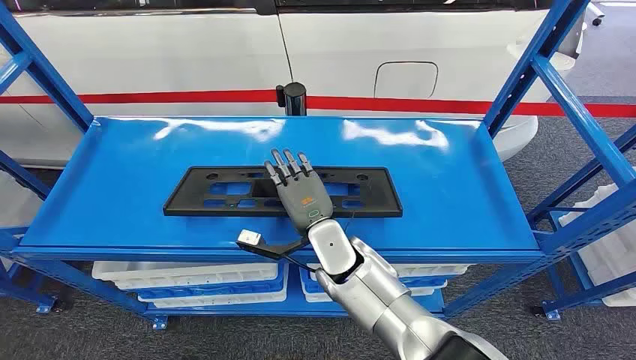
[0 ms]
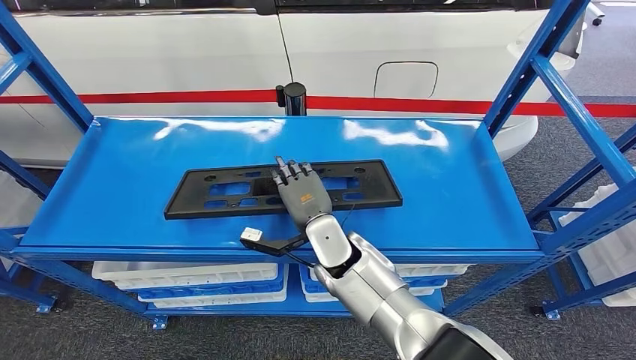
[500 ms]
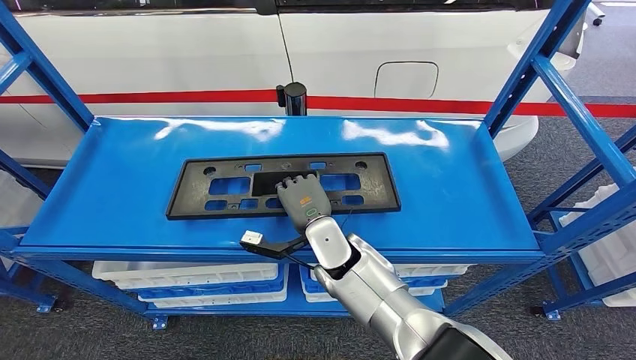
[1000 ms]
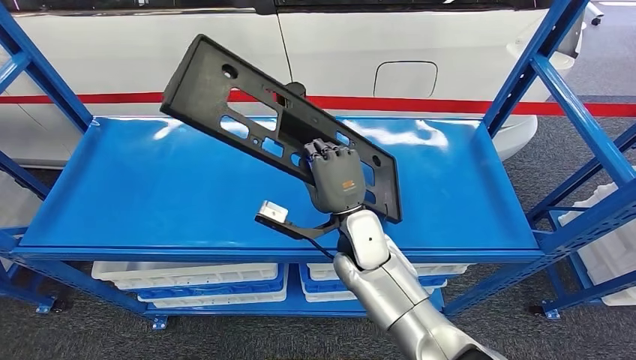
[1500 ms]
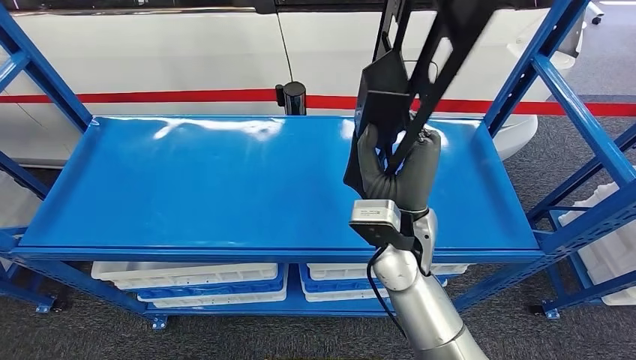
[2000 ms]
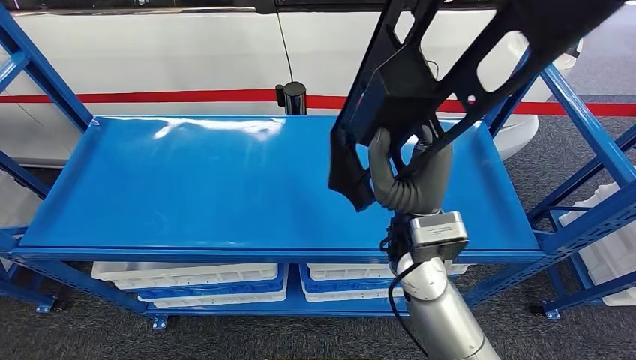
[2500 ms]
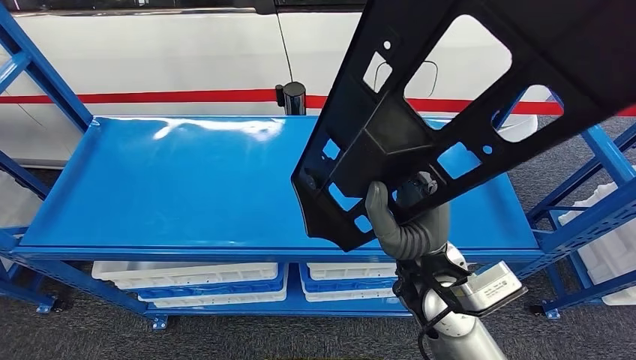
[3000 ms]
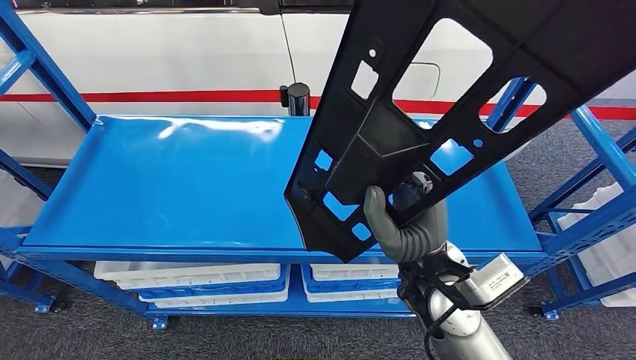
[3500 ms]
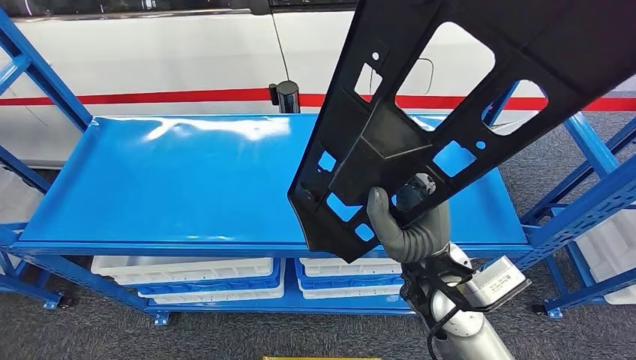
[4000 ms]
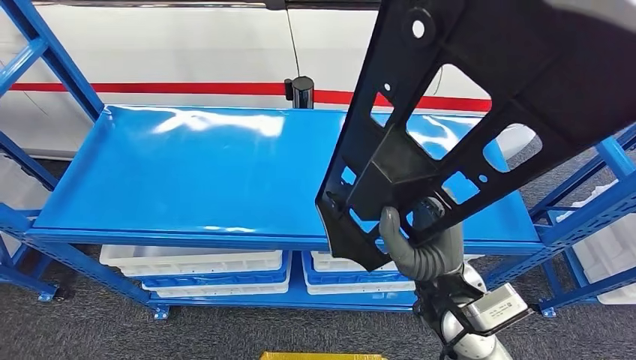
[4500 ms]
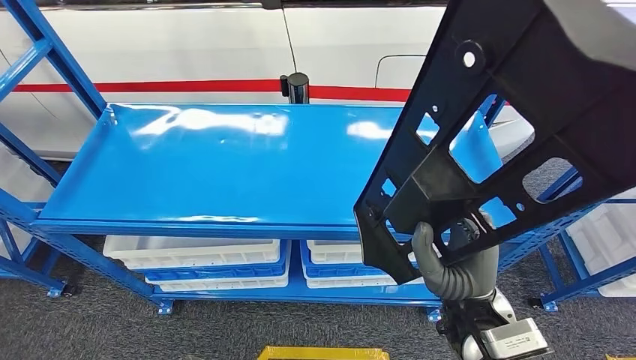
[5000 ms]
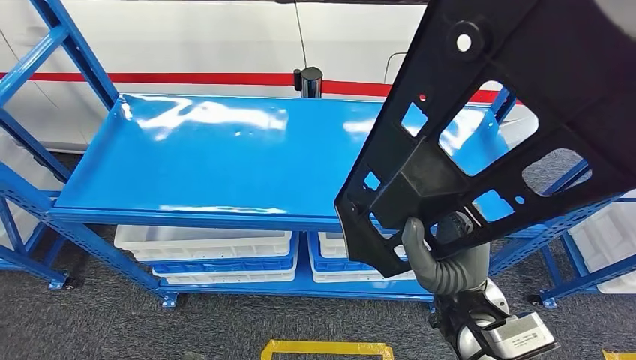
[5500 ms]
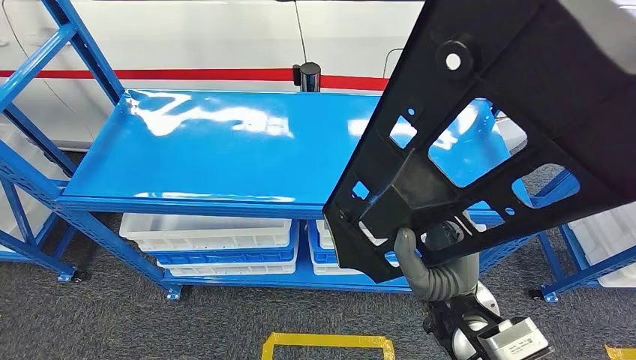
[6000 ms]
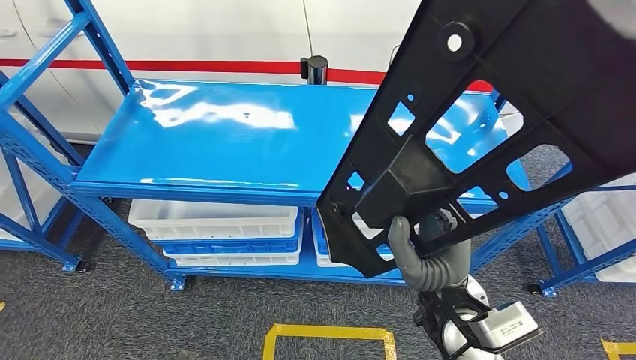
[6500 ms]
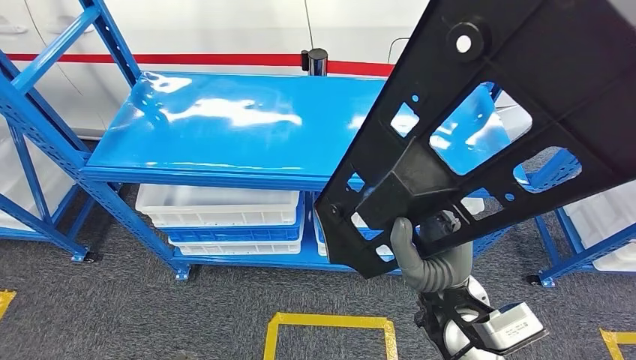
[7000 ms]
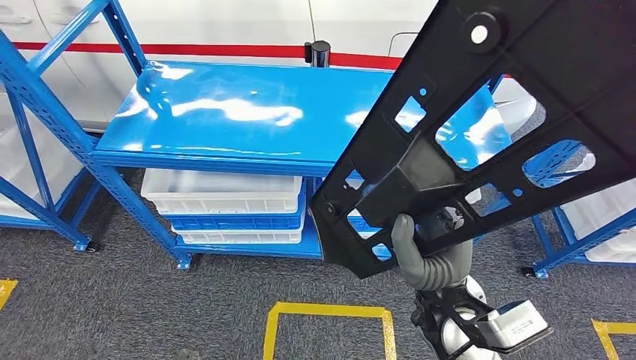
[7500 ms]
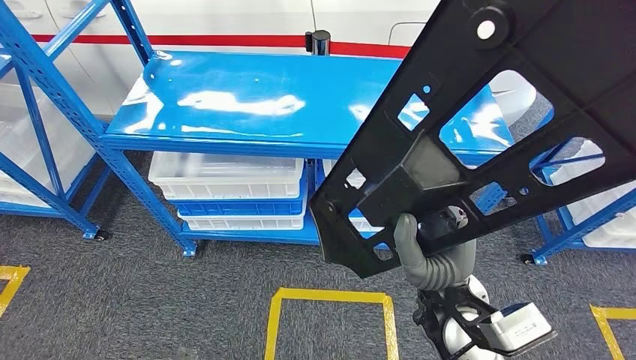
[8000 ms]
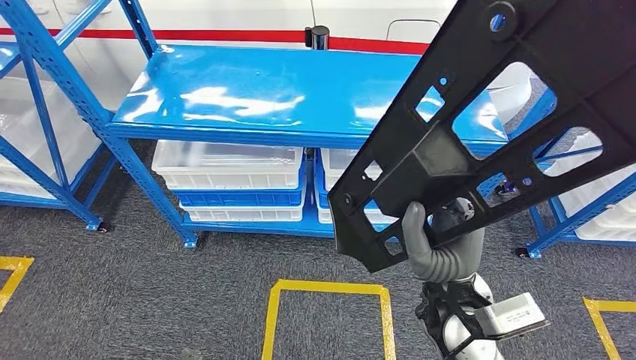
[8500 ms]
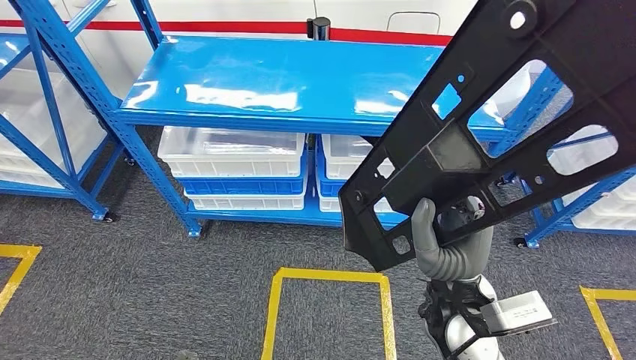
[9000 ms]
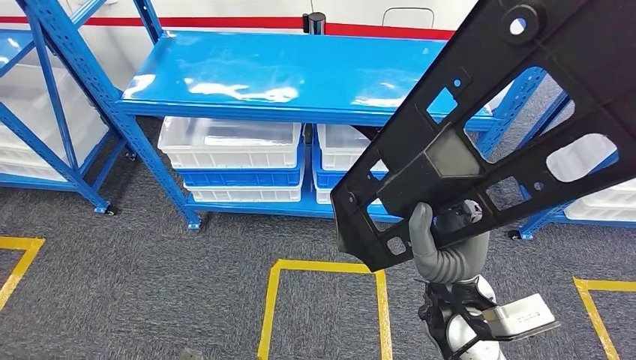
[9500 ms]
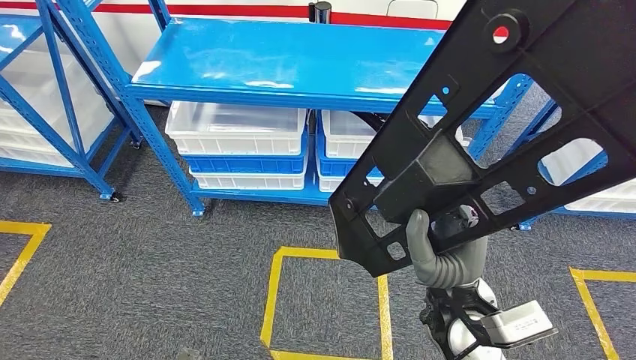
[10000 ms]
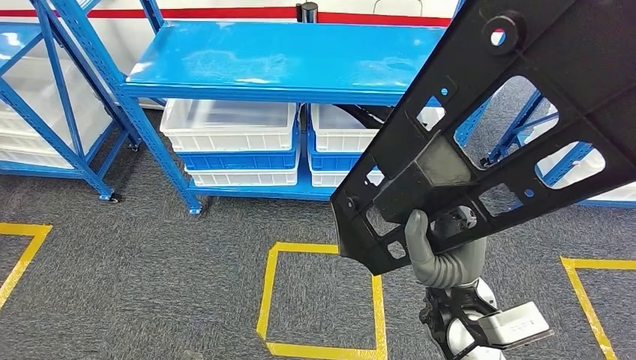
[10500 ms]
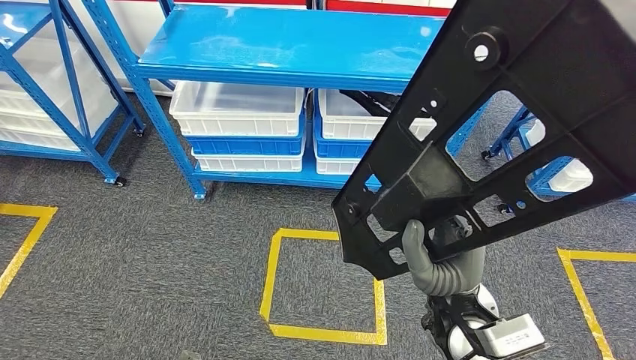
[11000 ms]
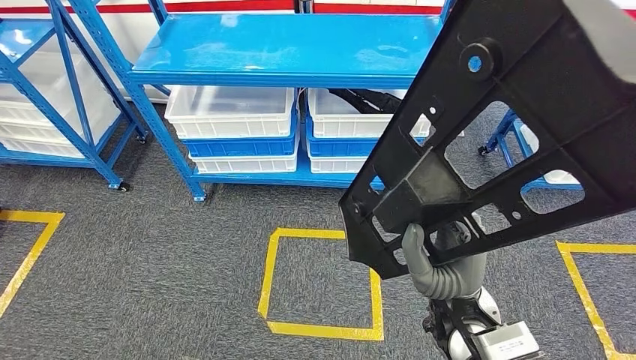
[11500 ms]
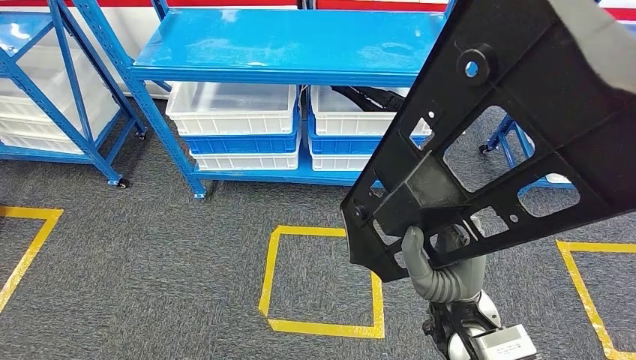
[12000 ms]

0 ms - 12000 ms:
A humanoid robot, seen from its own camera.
Step, 0 ms - 8000 ms: Pick up the large material from the shelf.

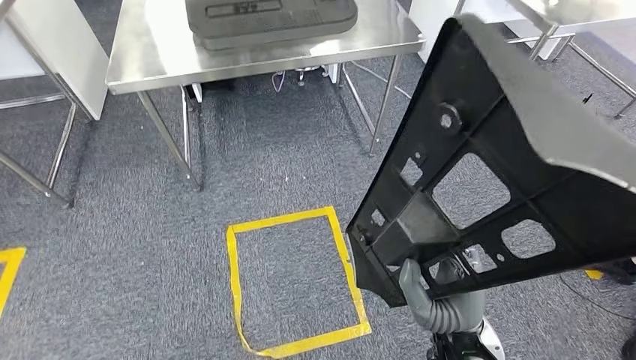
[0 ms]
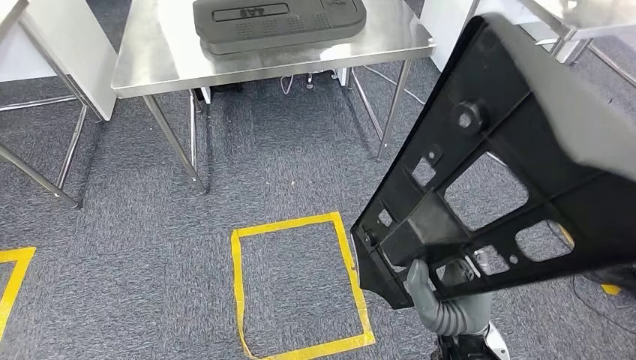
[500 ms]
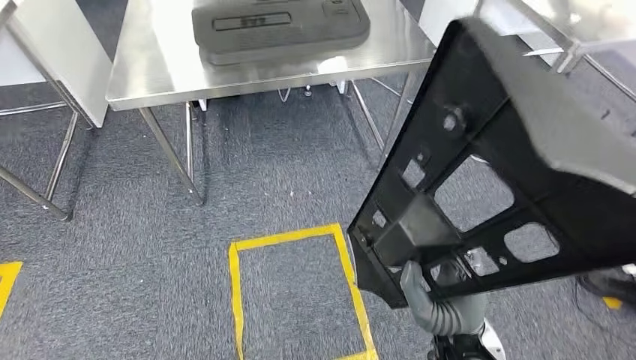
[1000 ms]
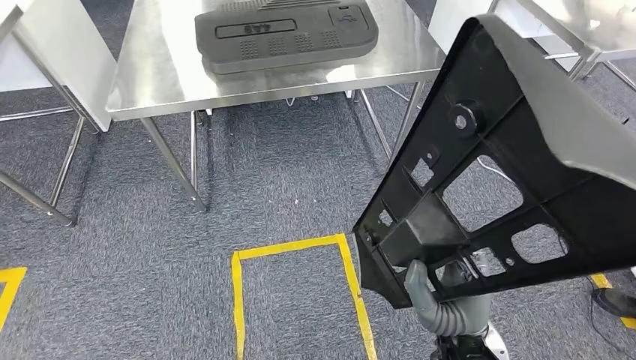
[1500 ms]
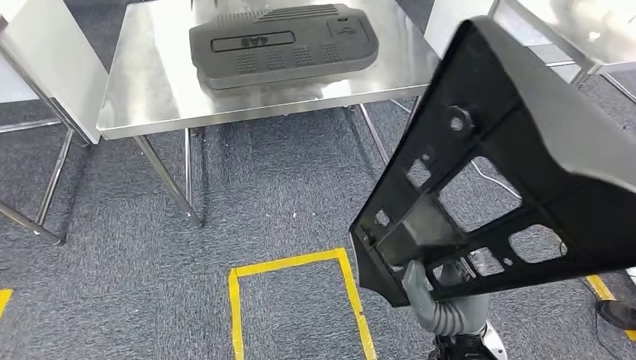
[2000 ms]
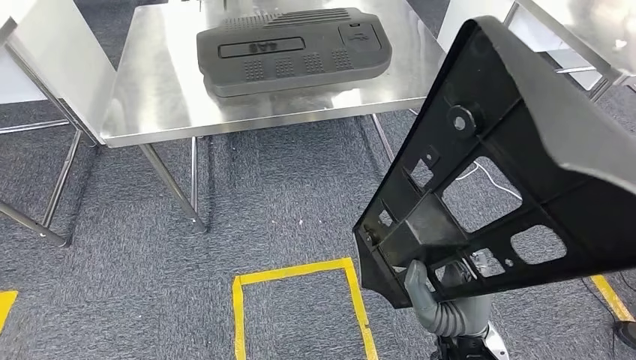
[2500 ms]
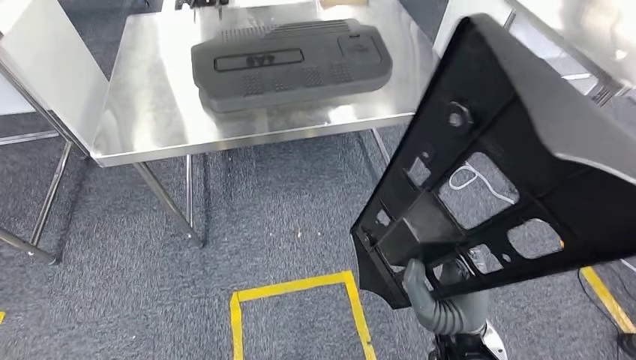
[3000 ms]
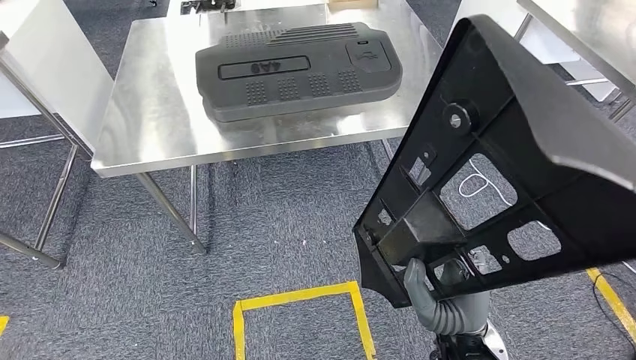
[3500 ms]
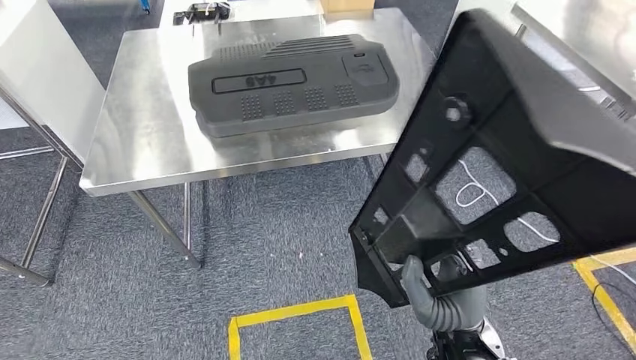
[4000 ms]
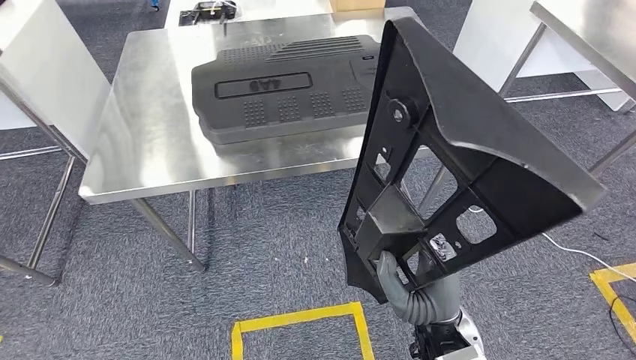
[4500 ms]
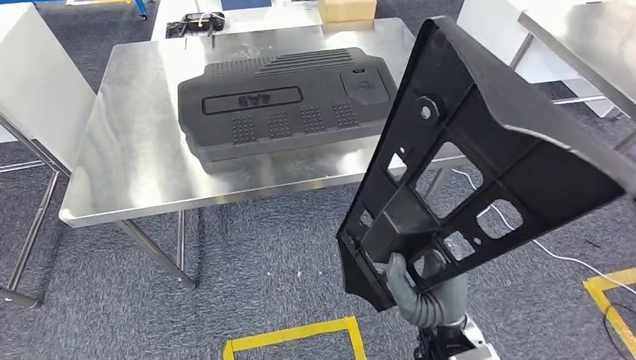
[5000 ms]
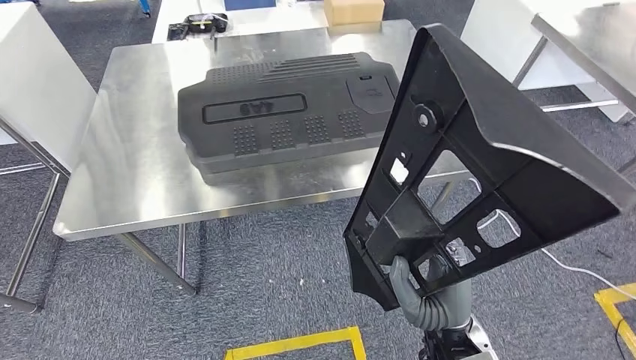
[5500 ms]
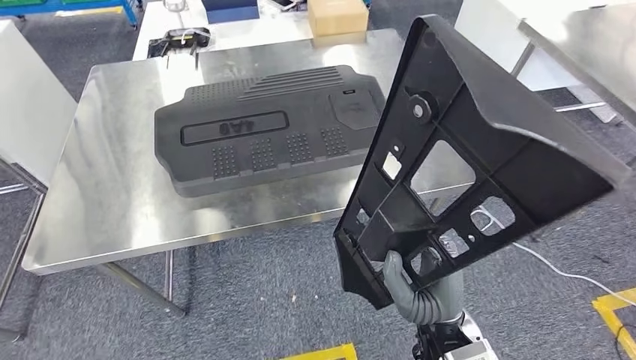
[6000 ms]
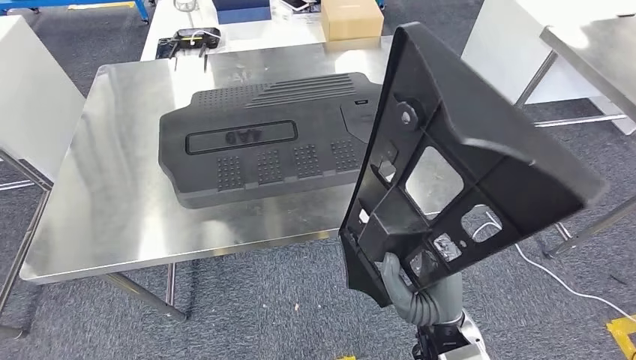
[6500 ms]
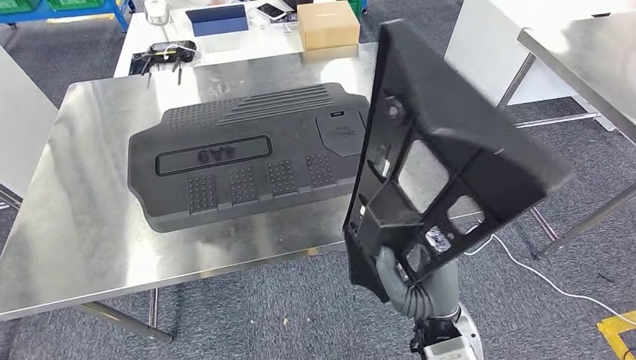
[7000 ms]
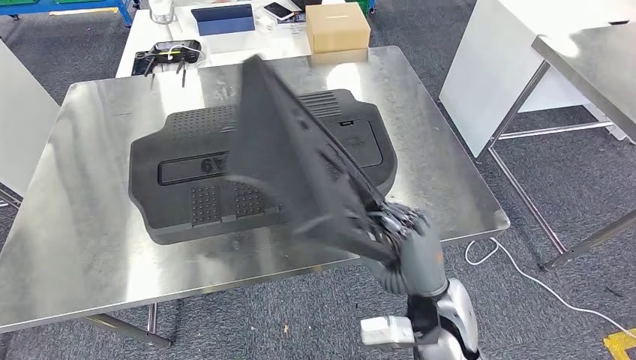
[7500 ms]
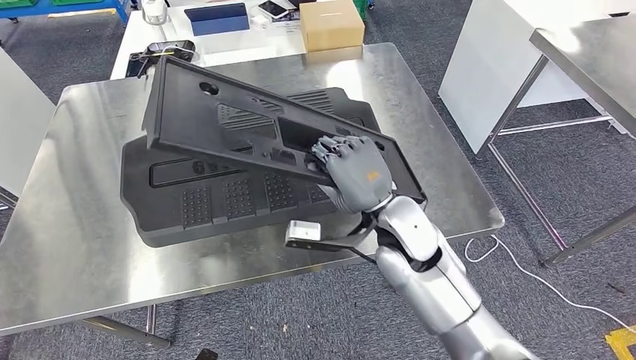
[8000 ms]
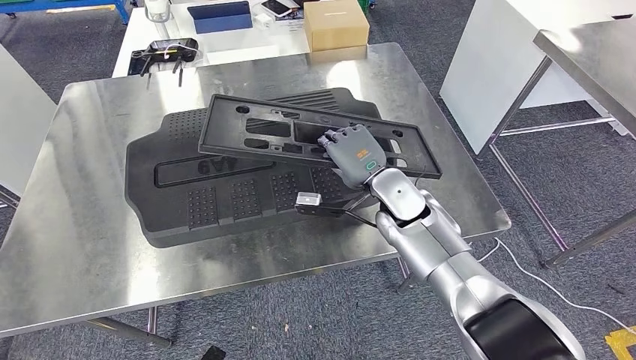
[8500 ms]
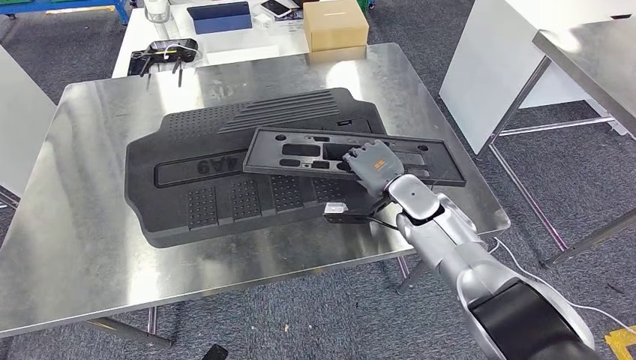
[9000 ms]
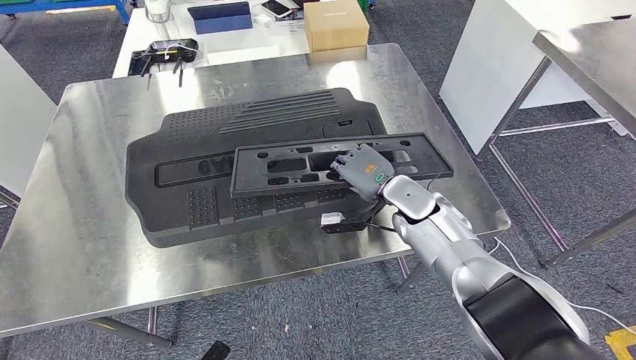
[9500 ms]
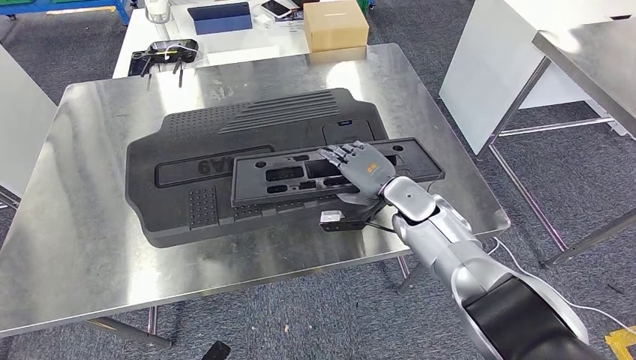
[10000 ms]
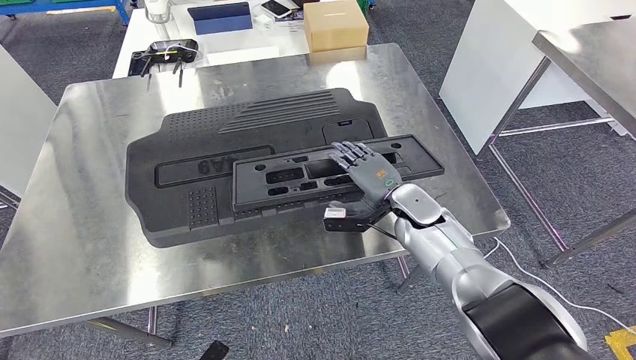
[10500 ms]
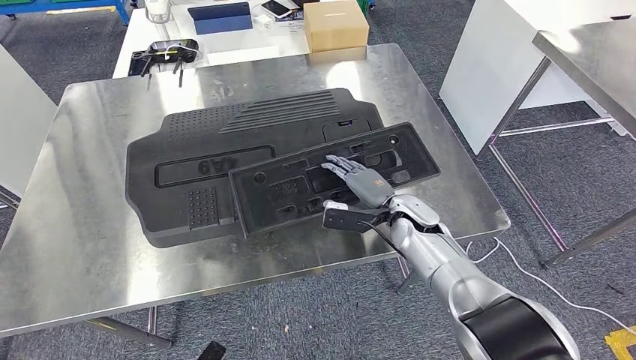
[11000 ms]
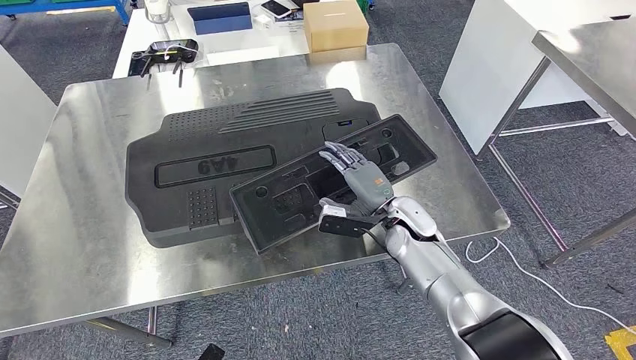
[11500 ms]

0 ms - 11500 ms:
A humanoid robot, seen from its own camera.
Step, 0 ms - 2500 ms: Move the large material to the workbench.
